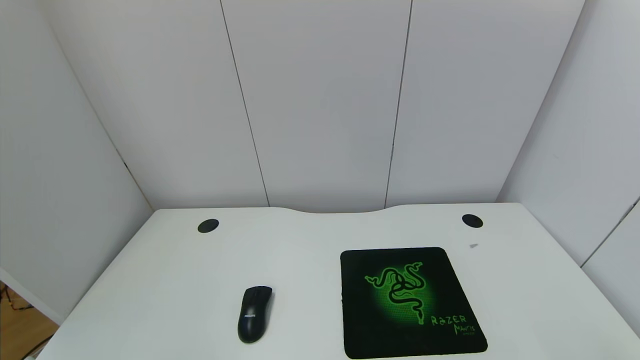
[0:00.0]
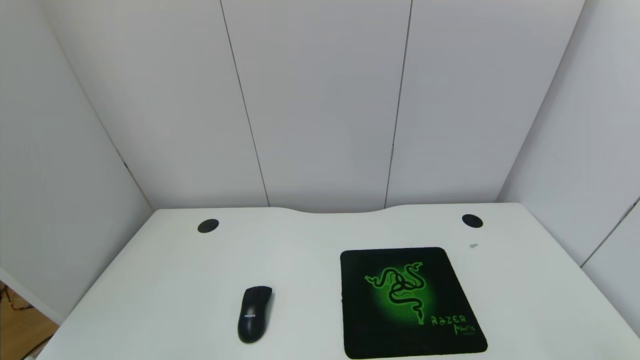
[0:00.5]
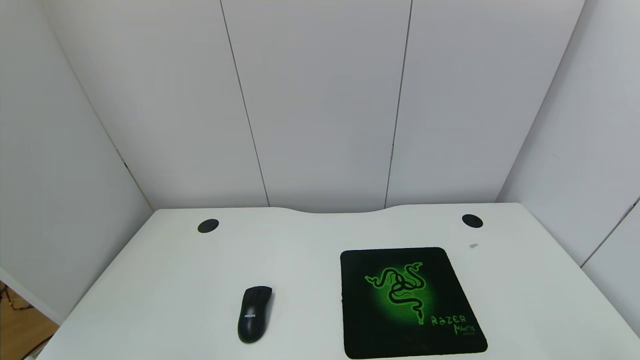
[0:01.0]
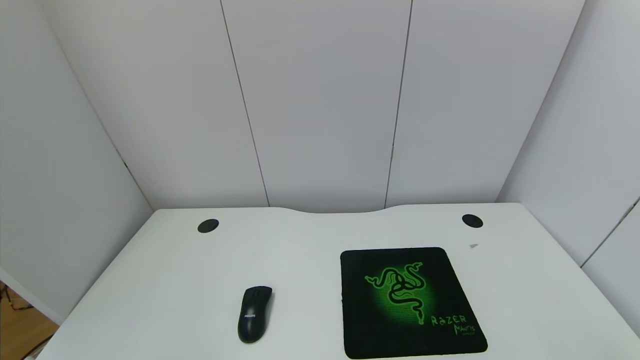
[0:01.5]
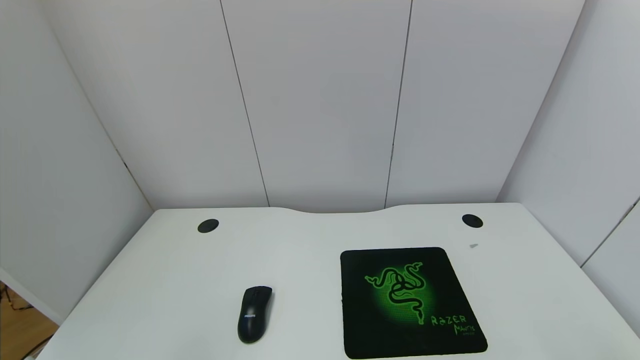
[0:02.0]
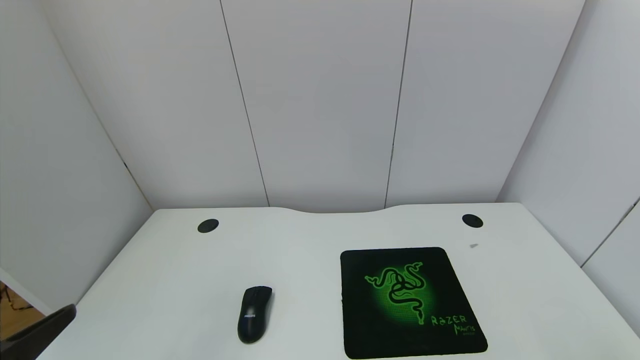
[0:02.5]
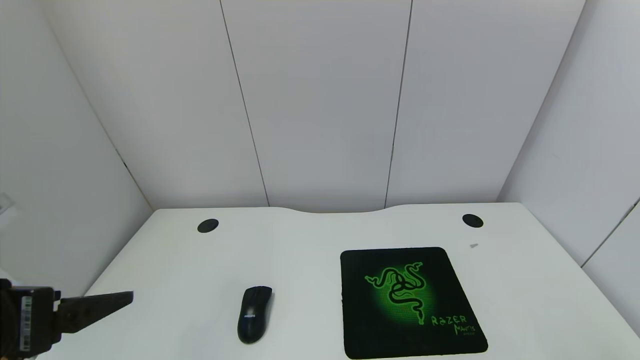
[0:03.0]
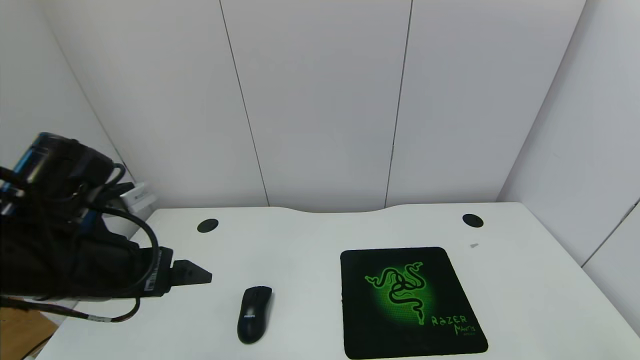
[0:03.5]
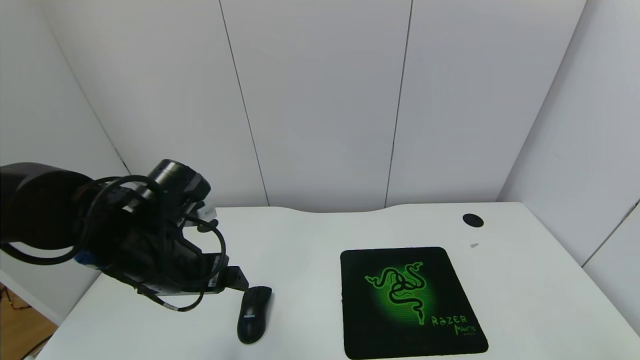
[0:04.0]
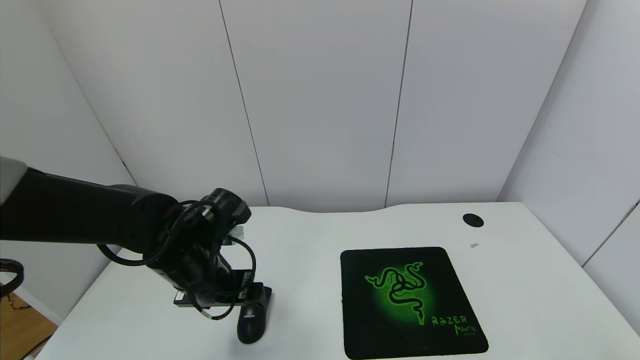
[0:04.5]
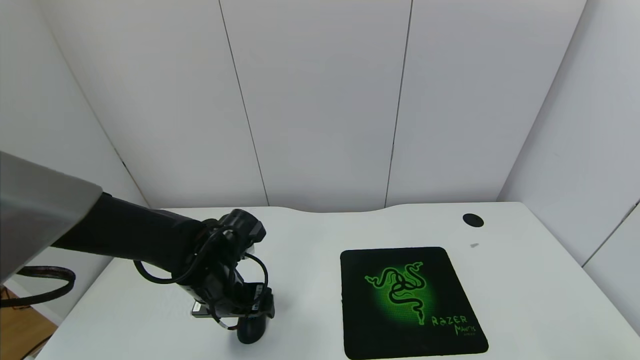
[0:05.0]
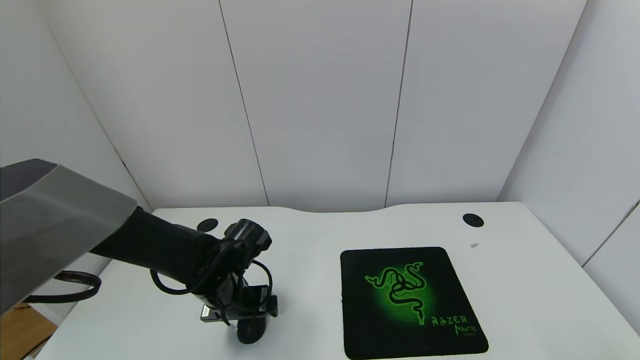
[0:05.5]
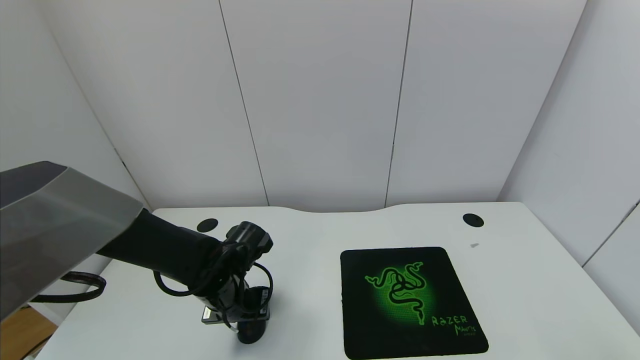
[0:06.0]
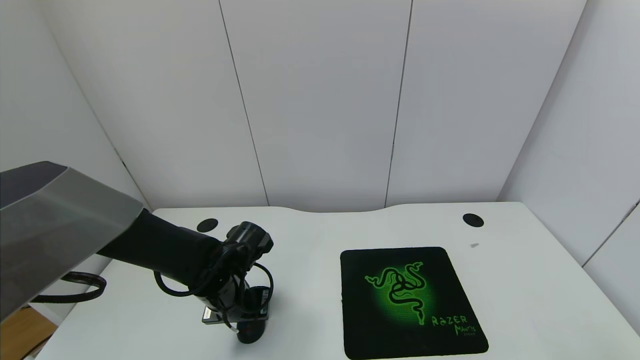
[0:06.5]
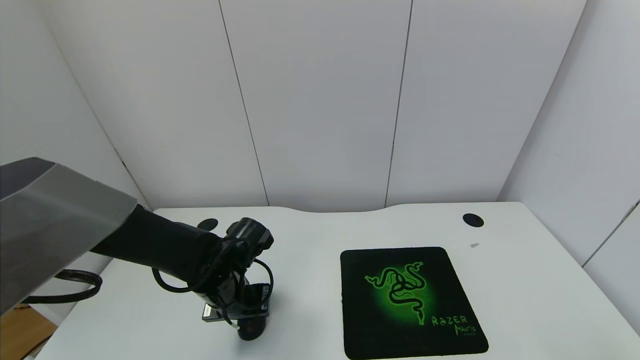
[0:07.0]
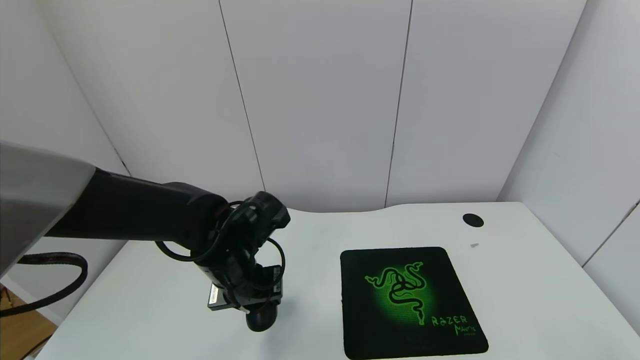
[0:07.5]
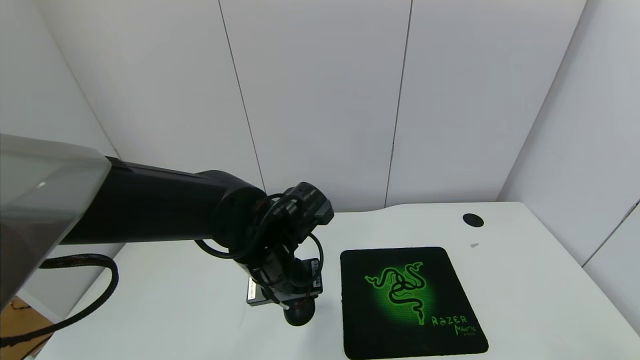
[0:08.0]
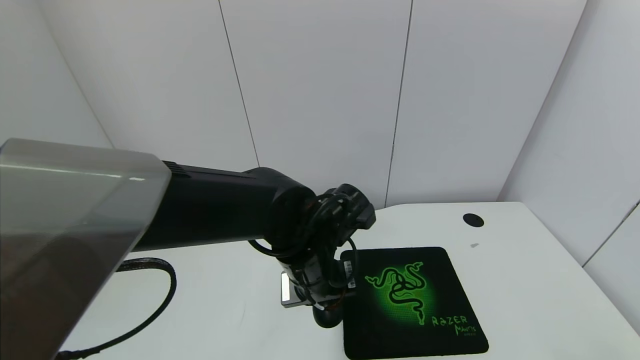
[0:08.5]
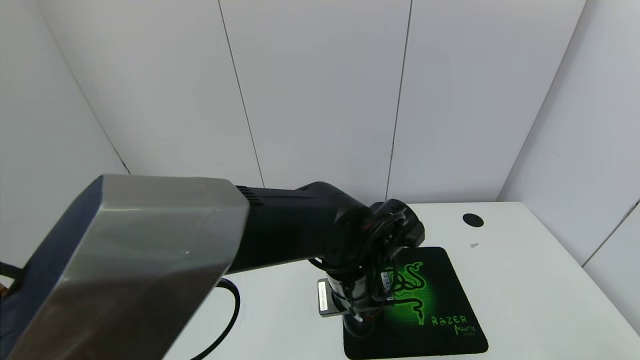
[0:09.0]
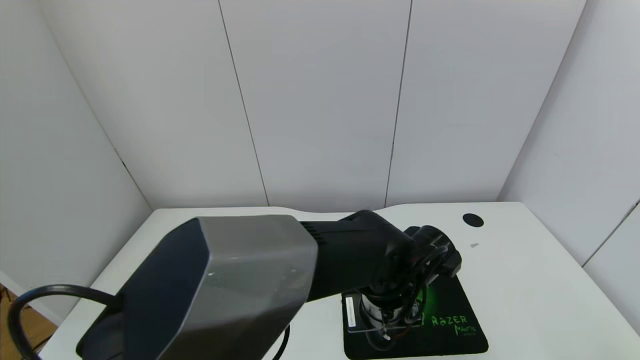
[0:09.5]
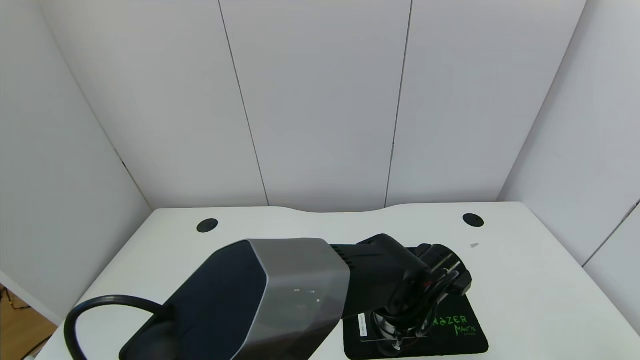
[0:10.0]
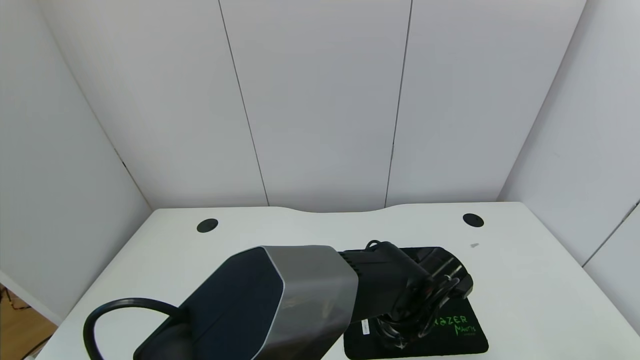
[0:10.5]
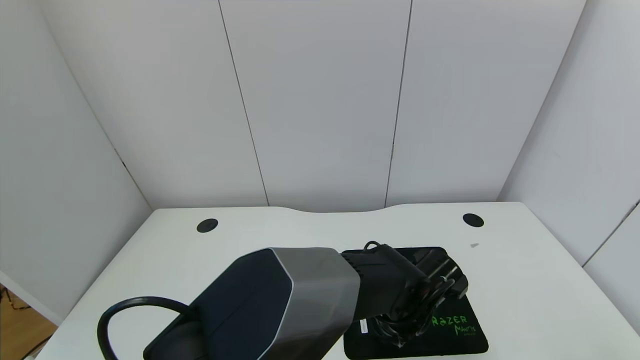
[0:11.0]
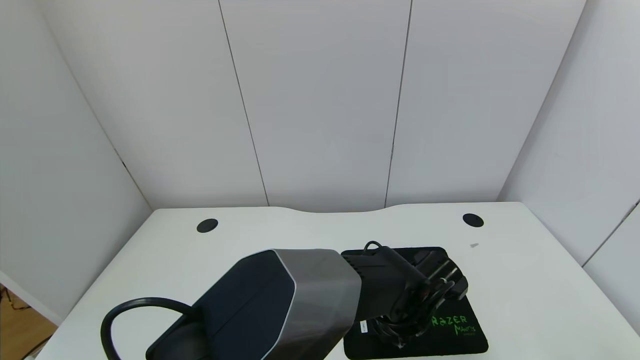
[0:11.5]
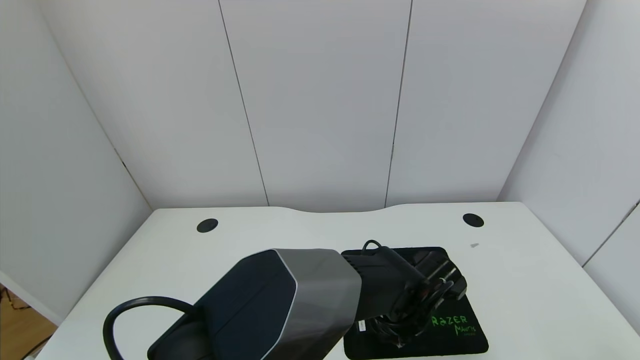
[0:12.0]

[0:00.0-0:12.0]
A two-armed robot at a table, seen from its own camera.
Task of the whole recording: use the gripper to move the mouse from one side of the table to the mouse pad on the opposite side.
Step, 0:00.0 to 0:06.5: Grasp the mouse with the left gripper.
0:02.0 to 0:04.0: The left gripper goes approximately 30 cm forward.
0:04.0 to 0:06.0: The left gripper shifts about 10 cm downward, and closes.
0:06.0 to 0:08.0: The left gripper shifts some 15 cm to the right and upward.
0:08.0 to 0:10.0: The left gripper shifts some 20 cm to the right and downward.
0:10.0 to 0:12.0: The left gripper opens its fingers.

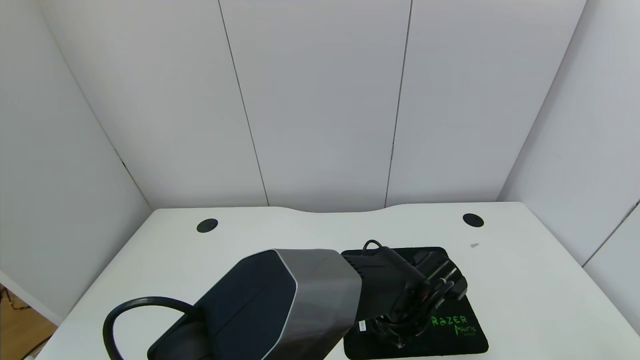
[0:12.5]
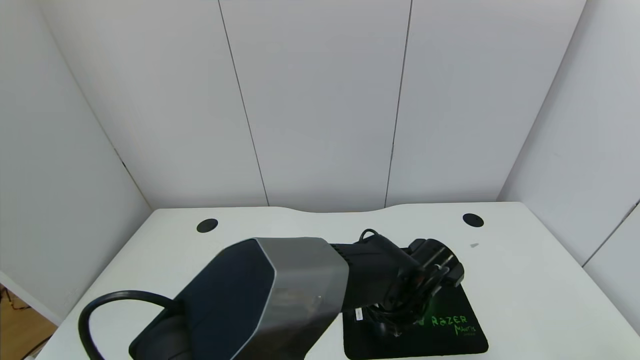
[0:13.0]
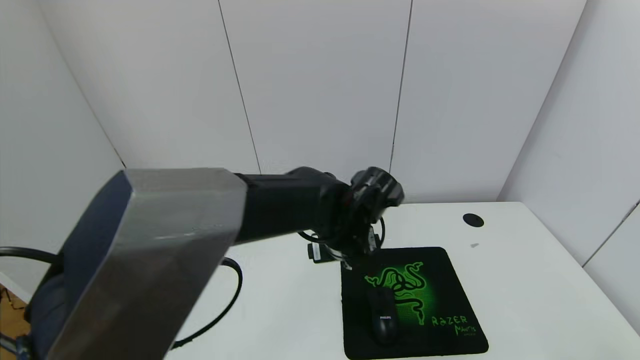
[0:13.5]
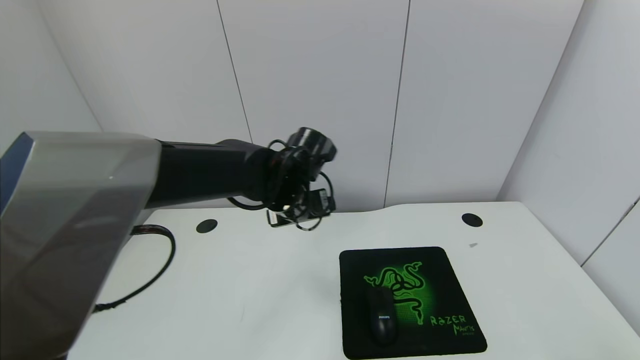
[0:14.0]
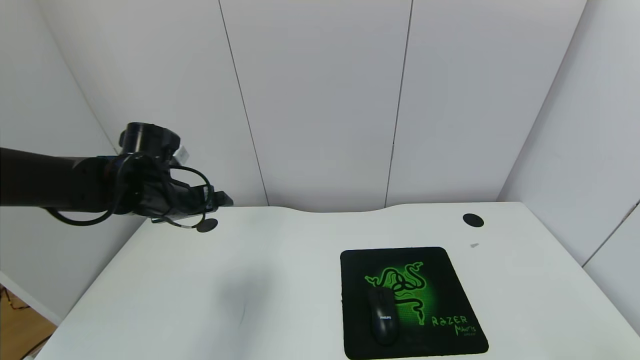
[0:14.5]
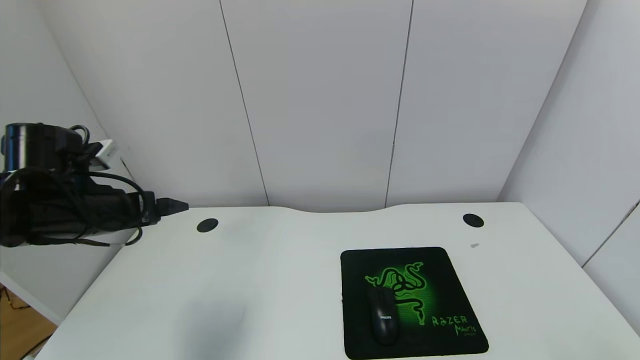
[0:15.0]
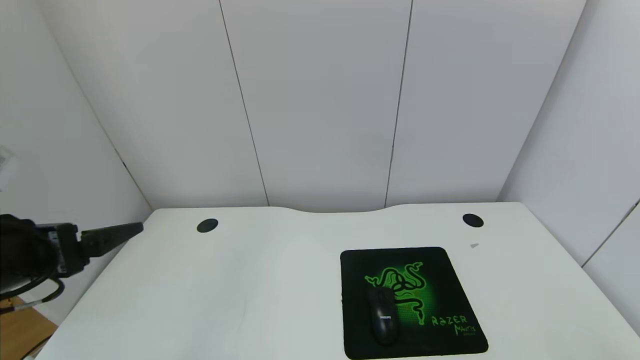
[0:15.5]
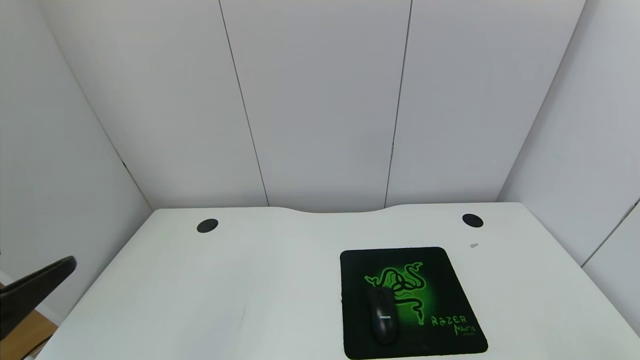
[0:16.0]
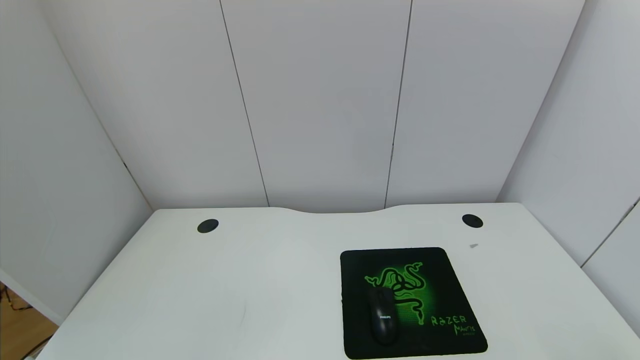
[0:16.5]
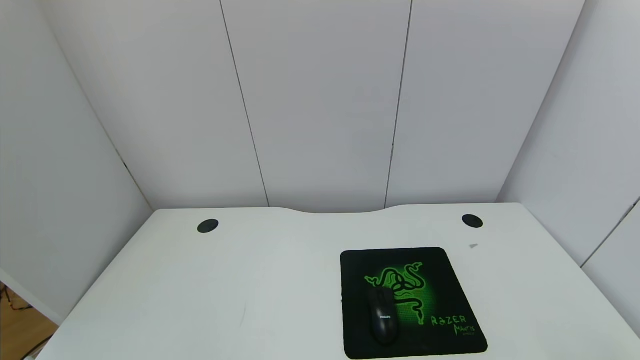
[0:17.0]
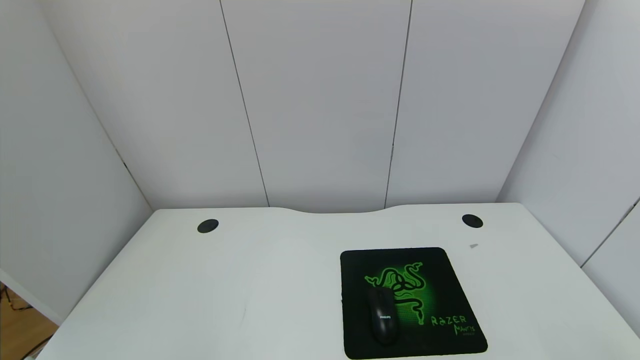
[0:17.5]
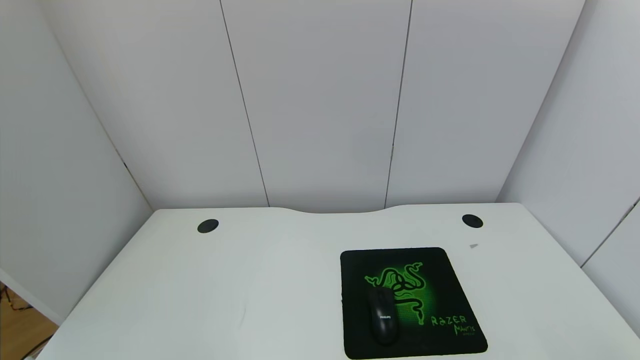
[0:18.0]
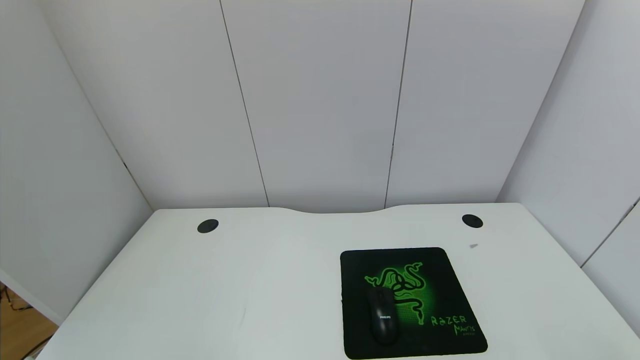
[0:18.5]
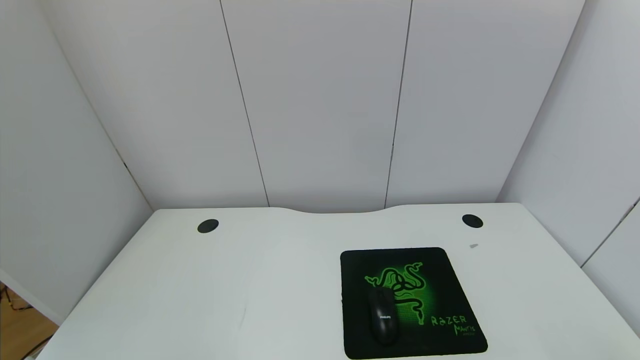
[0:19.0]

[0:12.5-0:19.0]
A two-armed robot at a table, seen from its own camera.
Task of the whole recording: use the gripper to move the mouse from one side of the table to the mouse pad on the opposite side.
0:12.5 to 0:14.5: The grippers move only a little.
0:14.5 to 0:17.0: The left gripper travels to the left and backward by roughly 50 cm.
